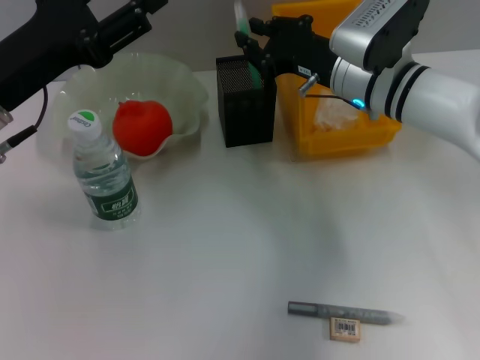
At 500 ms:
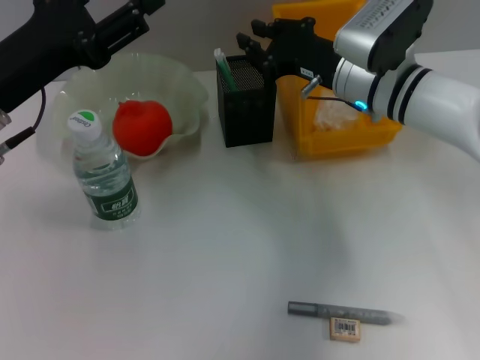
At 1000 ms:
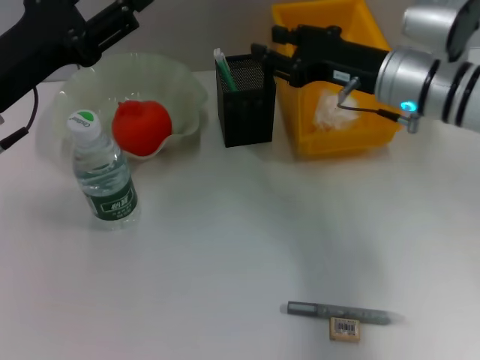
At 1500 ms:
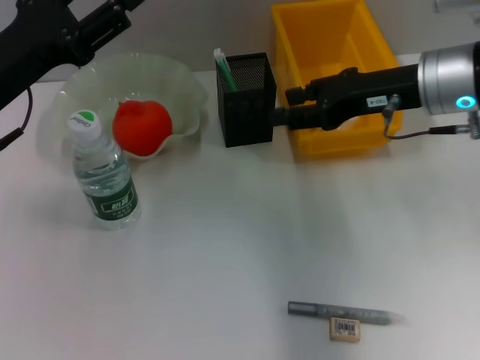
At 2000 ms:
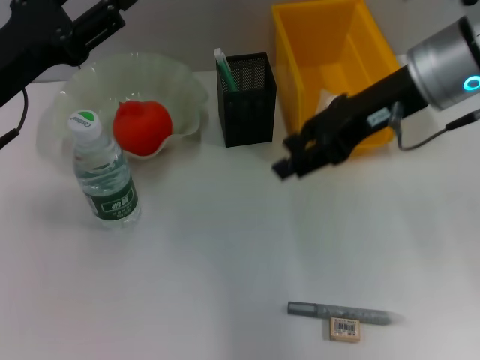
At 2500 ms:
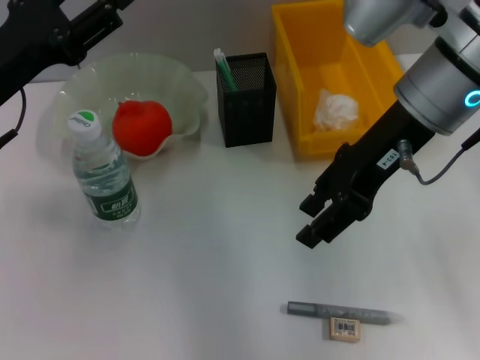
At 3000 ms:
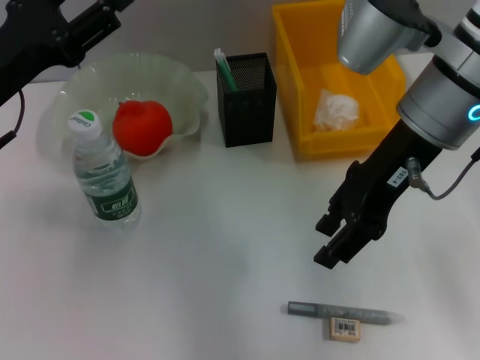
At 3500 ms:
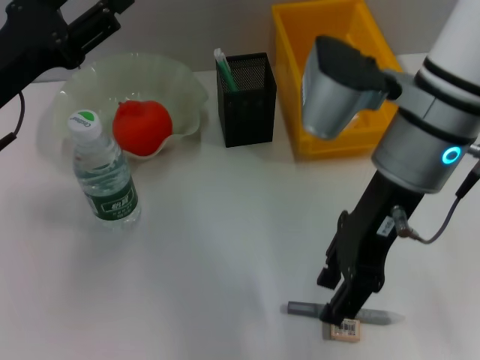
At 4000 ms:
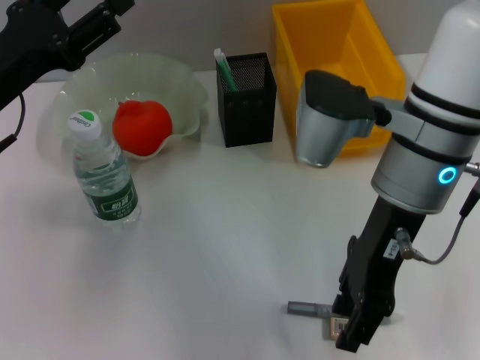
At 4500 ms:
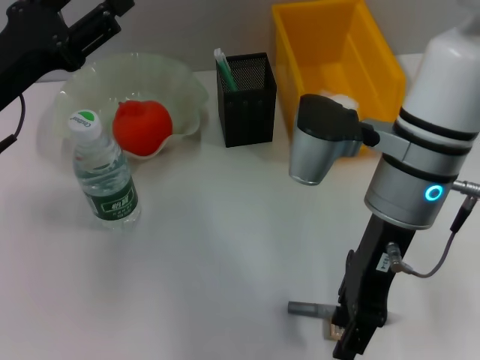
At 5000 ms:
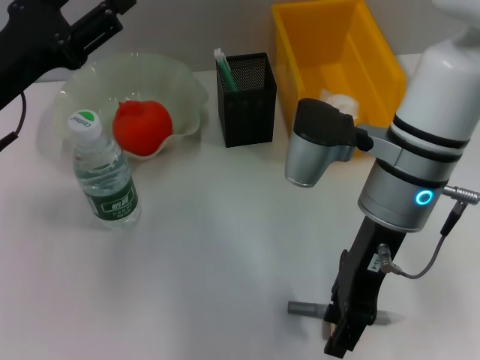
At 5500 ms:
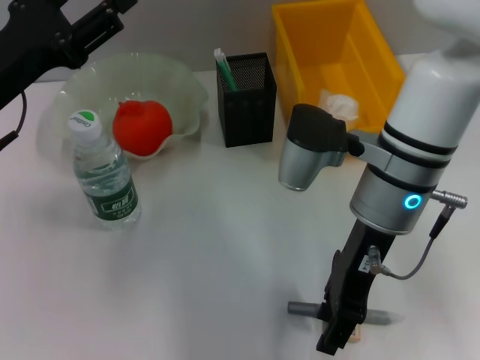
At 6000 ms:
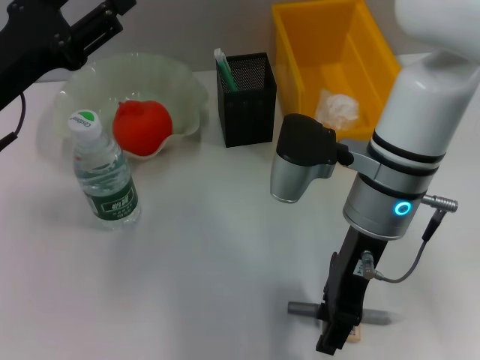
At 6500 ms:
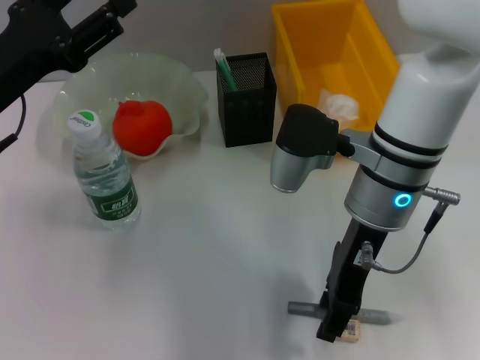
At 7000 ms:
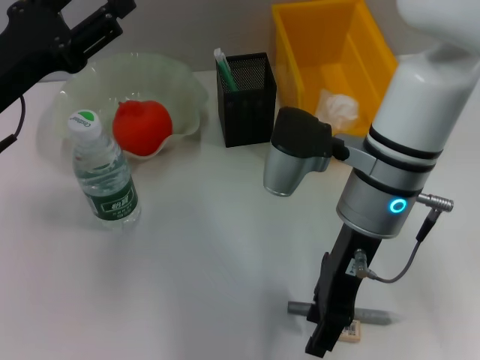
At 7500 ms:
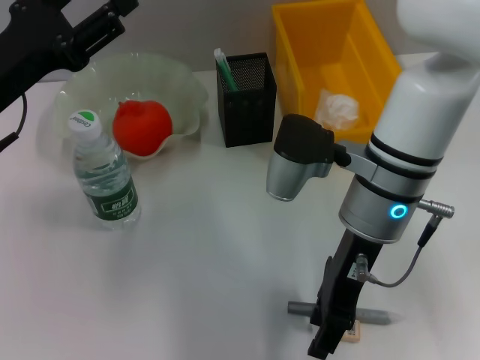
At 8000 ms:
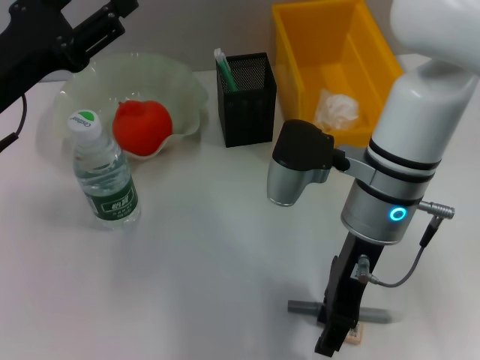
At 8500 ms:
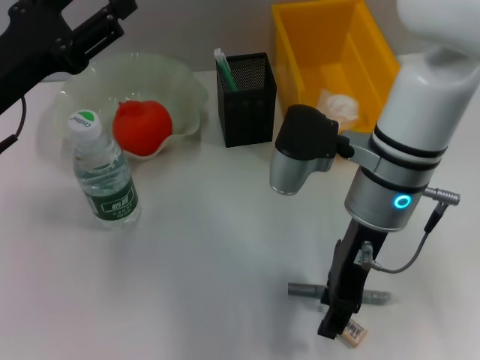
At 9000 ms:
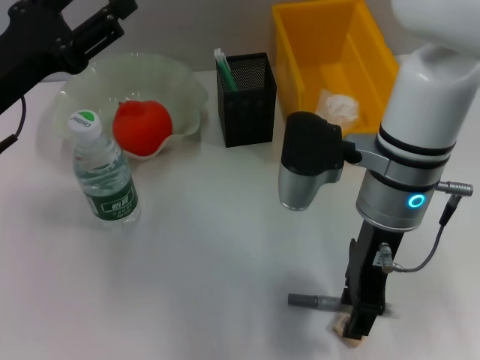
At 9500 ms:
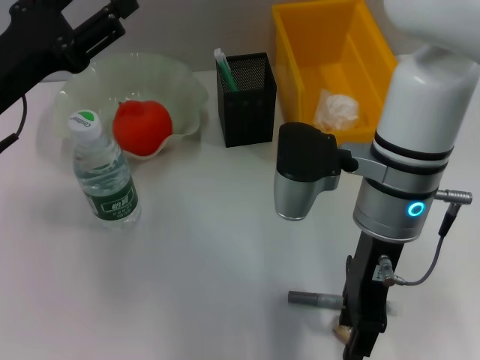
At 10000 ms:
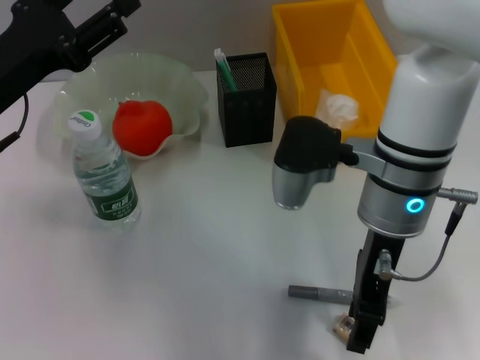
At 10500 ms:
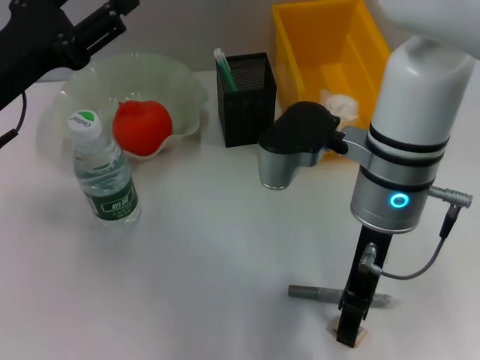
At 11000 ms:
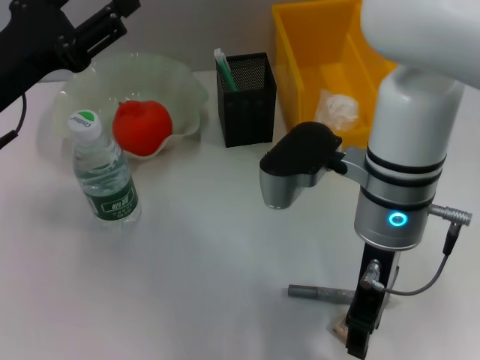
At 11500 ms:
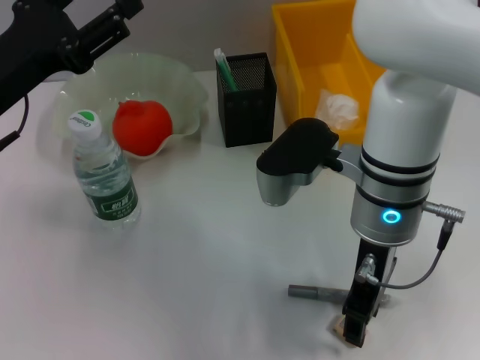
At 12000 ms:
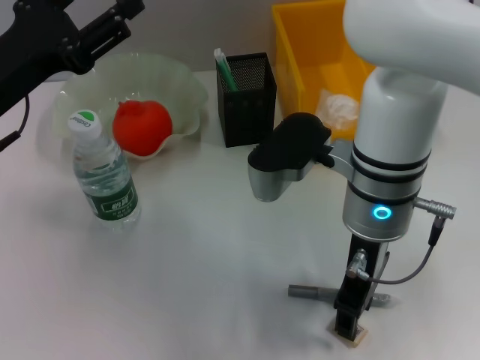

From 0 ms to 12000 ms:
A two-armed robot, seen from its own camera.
From 0 ms to 2000 ms: The right gripper moves upward and backward, about 15 cm, and opens up.
From 2000 ms to 4000 ms: The right gripper shifts some 5 cm to the left.
From 4000 ms to 6000 ms: The right gripper is displaced downward by approximately 5 cm.
From 6000 ms to 8000 ms: Both grippers stay about where they are.
From 8000 ms to 10000 ms: The grippers stay close to where they were, moving slightly.

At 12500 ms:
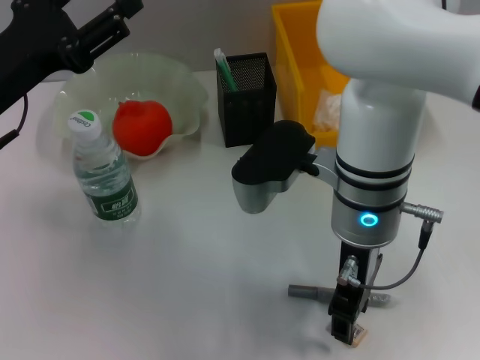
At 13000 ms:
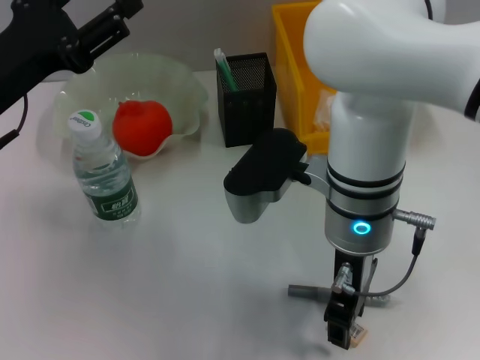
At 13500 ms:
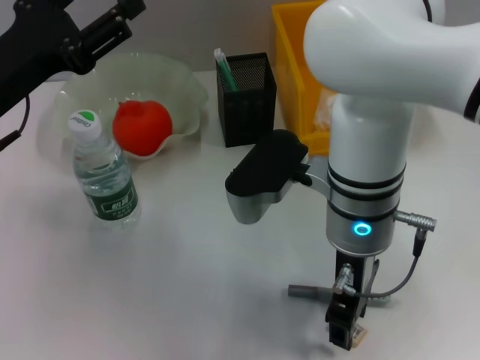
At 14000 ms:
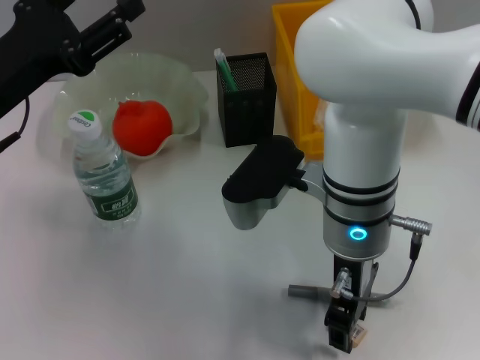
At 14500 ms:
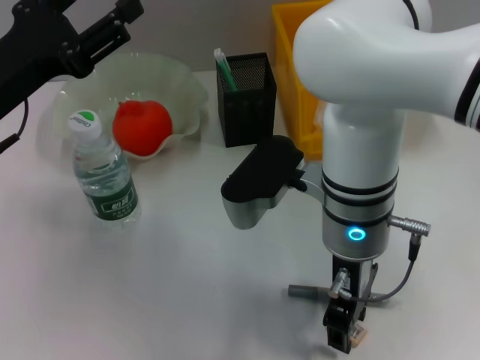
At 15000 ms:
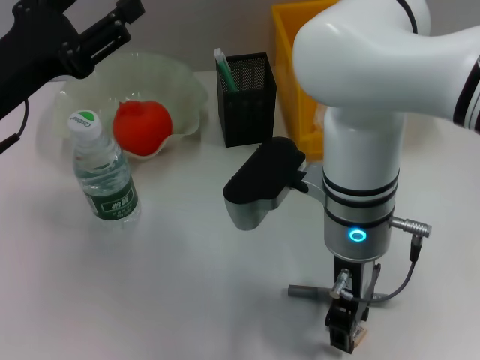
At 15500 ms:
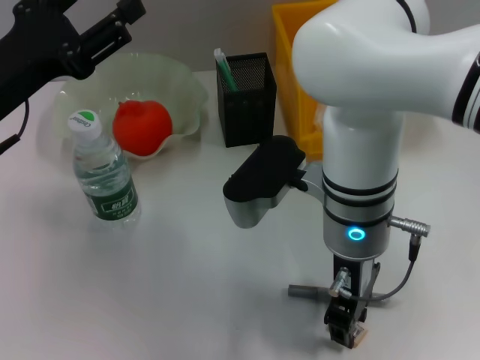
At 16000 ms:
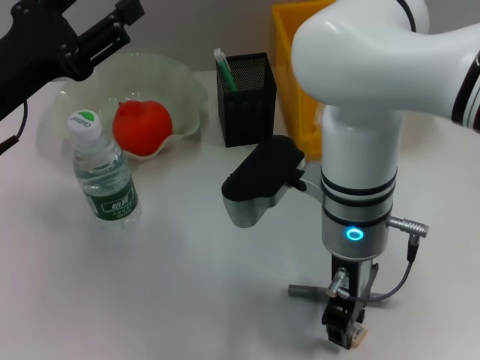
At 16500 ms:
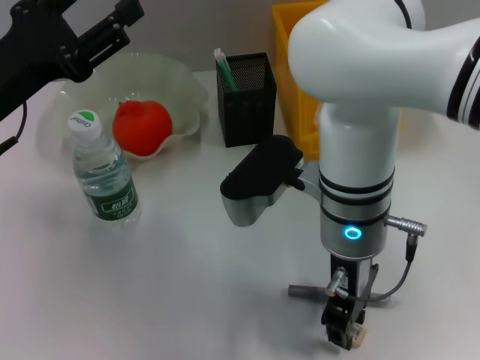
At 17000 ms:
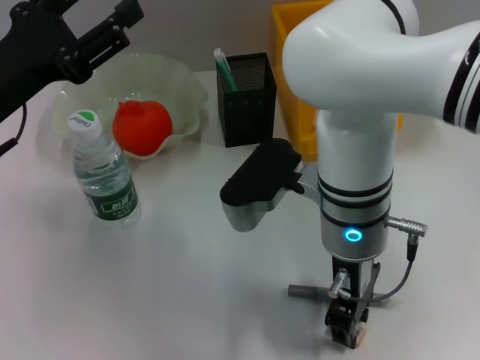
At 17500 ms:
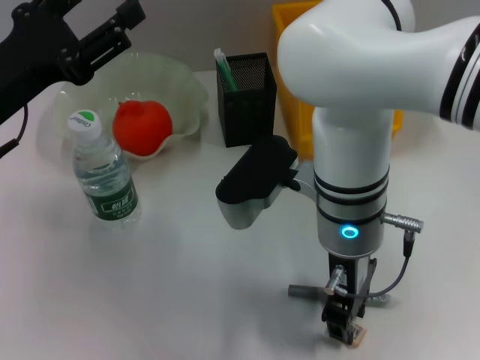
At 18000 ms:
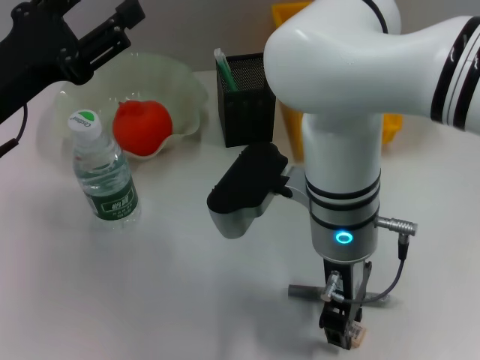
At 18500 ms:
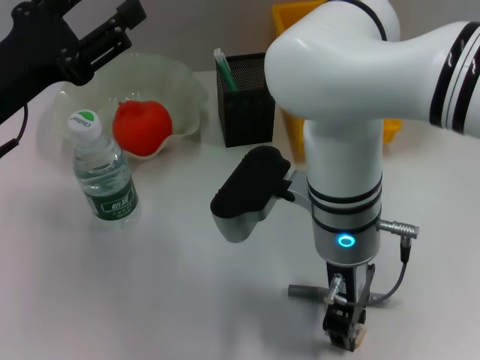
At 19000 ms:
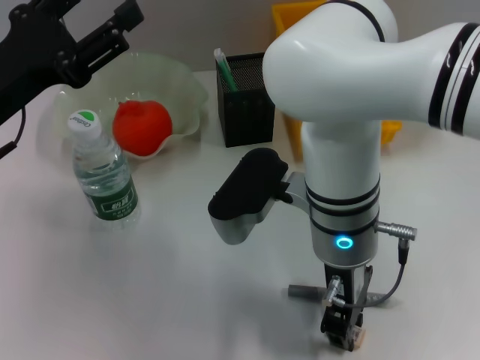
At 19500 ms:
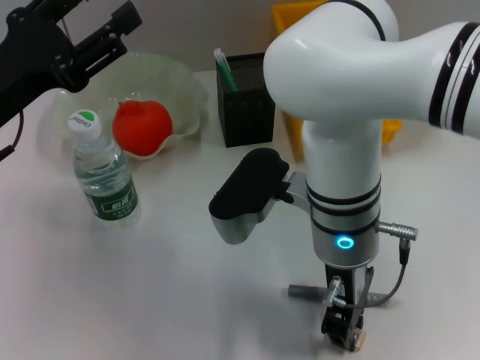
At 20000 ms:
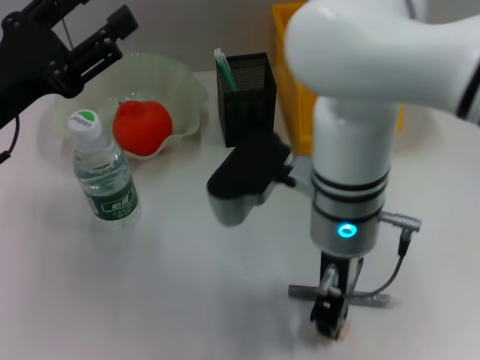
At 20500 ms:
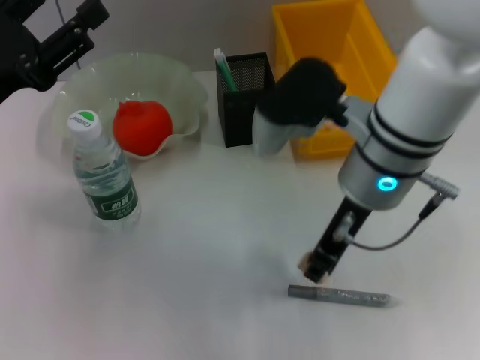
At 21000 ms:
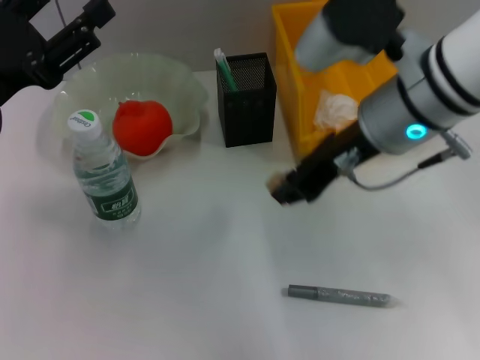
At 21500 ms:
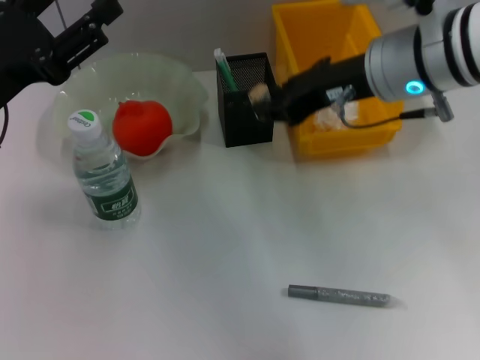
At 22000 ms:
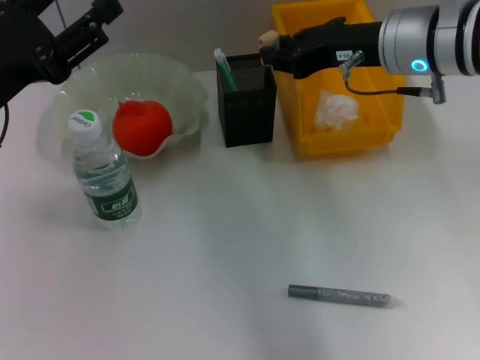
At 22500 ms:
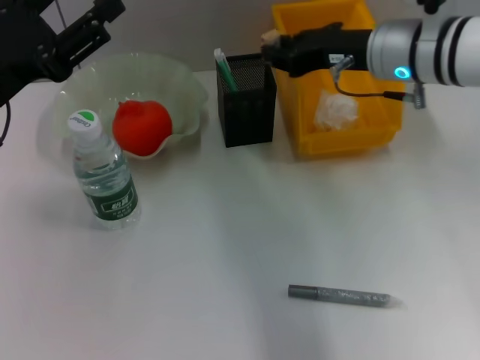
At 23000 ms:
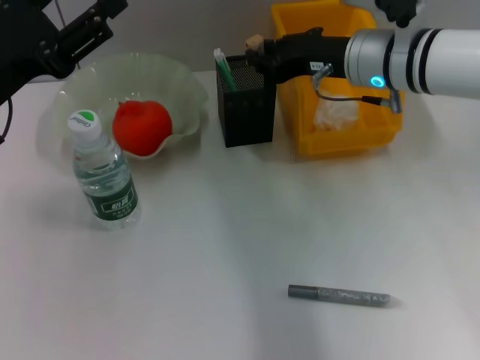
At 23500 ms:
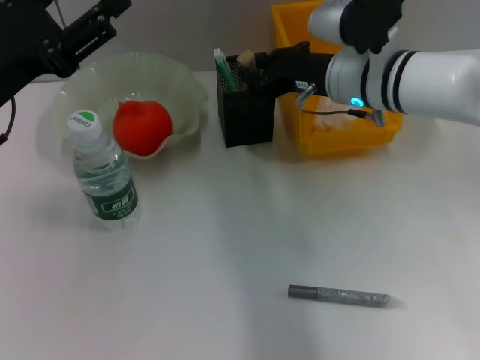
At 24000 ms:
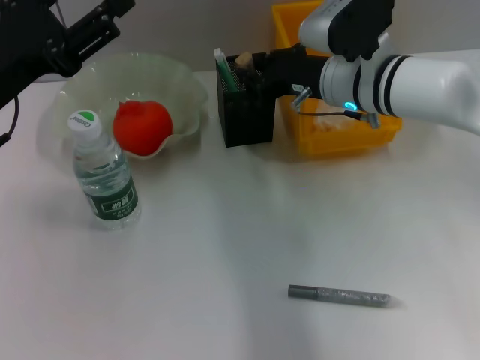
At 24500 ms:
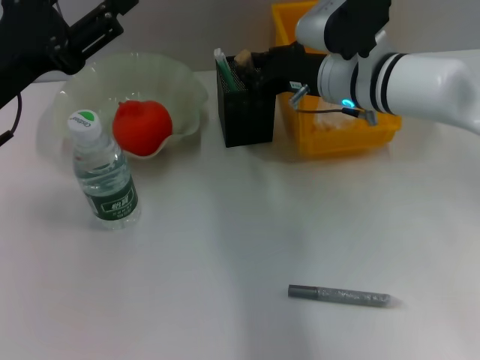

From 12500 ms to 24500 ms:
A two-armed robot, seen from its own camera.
Step, from 12500 ms to 19000 ms: Grab the eraser with the right hand.
From 14500 ms to 16500 ms: Both grippers stay about where they are.
From 16500 ms to 18500 ms: There are only small adjustments of the grippers.
From 18500 ms to 20500 ms: The right gripper goes about 5 cm upward.
From 20500 ms to 22500 ms: The right gripper goes roughly 10 cm forward and to the right.
From 22500 ms to 24500 ms: The right gripper changes place by roughly 5 cm.

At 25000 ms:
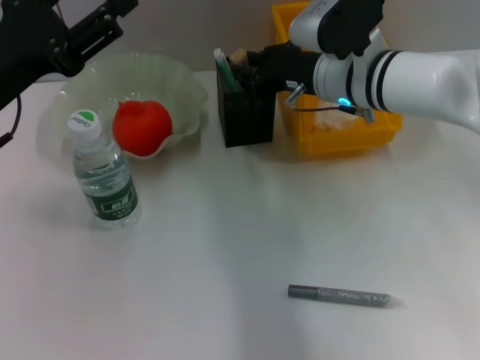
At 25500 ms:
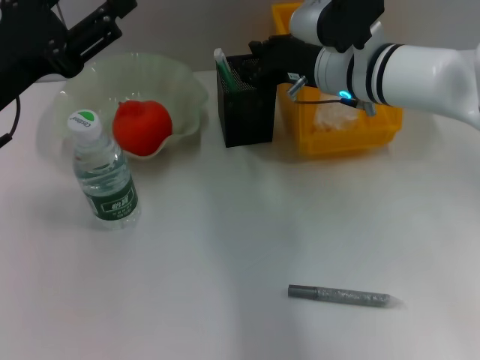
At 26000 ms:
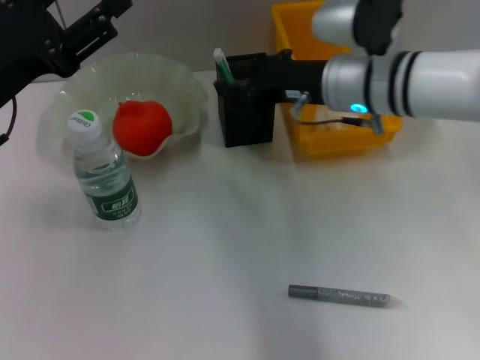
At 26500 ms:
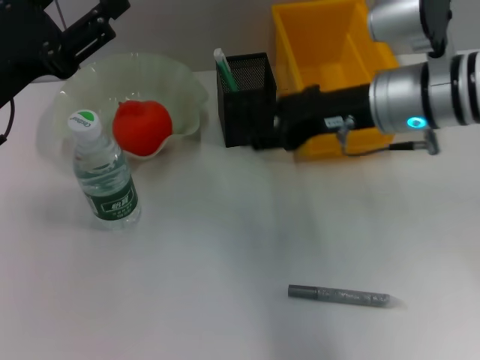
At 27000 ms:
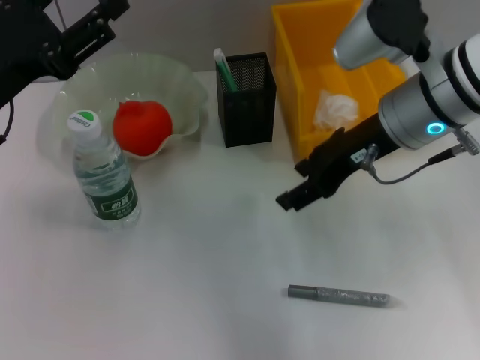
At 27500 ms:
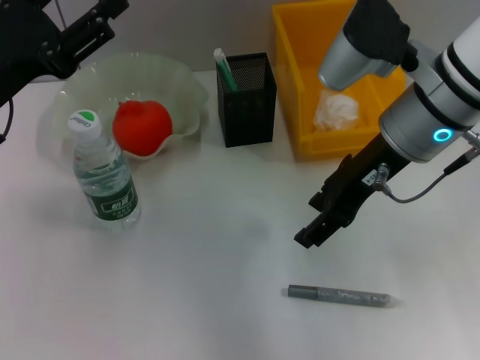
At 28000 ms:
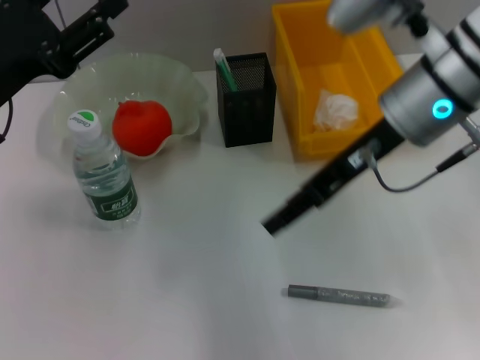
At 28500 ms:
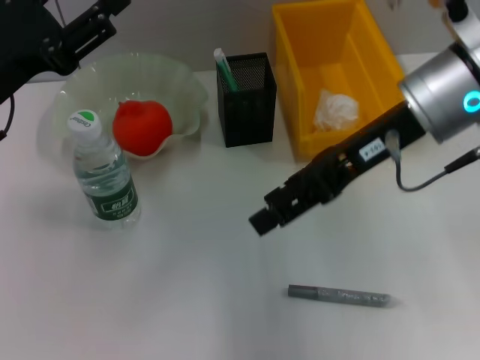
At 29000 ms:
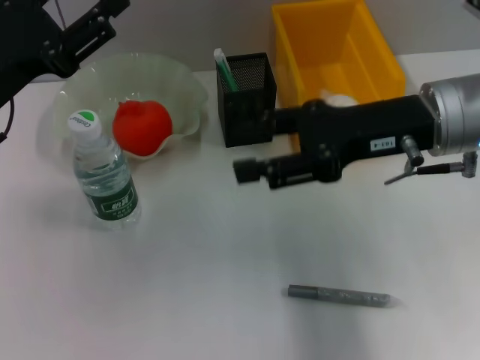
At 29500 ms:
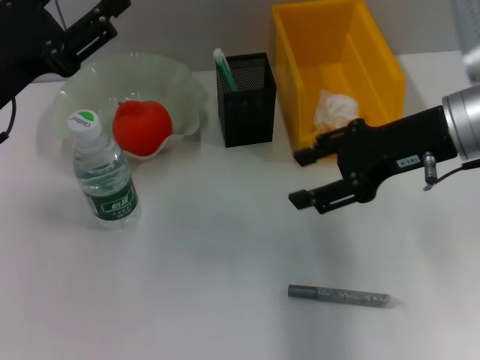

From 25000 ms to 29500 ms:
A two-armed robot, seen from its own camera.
From 25000 ms to 27000 ms: The right gripper goes some 10 cm backward and upward, and opens.
From 27000 ms to 29500 ms: The right gripper goes approximately 5 cm to the right.
